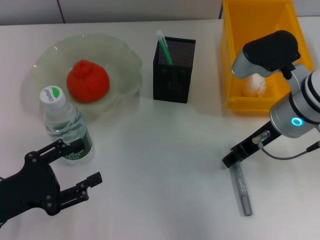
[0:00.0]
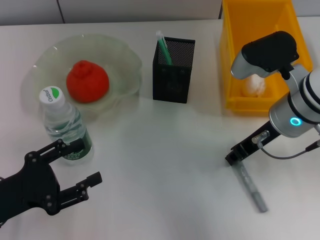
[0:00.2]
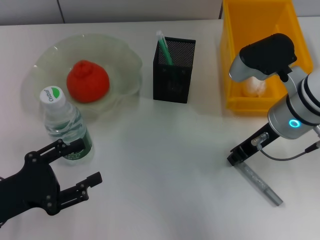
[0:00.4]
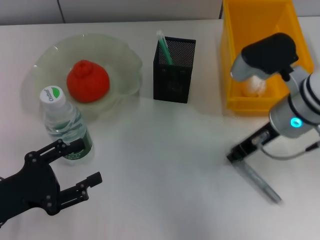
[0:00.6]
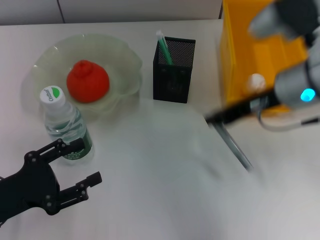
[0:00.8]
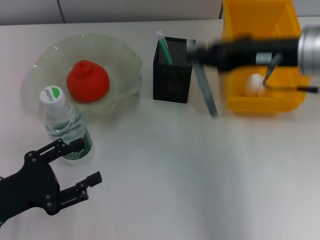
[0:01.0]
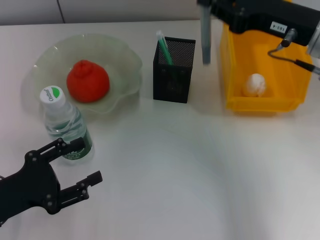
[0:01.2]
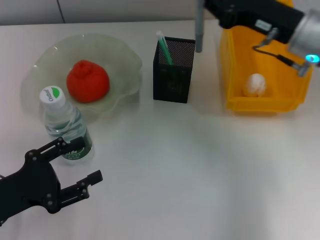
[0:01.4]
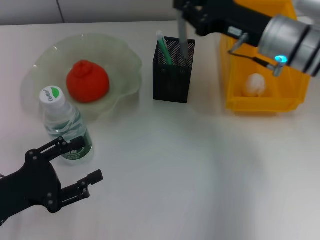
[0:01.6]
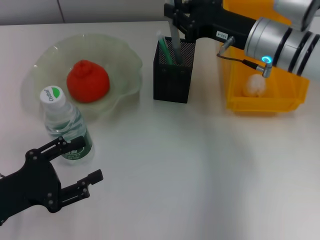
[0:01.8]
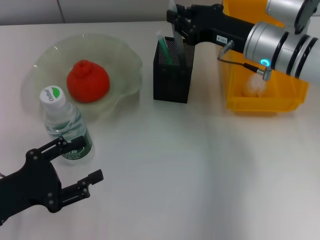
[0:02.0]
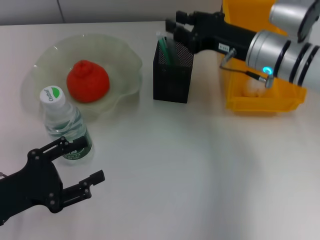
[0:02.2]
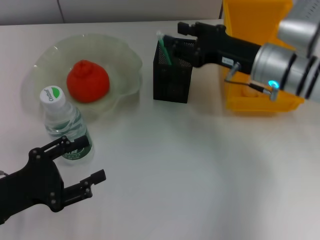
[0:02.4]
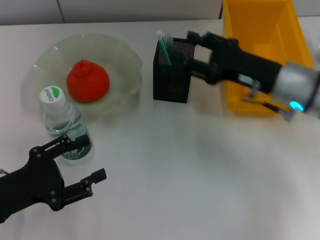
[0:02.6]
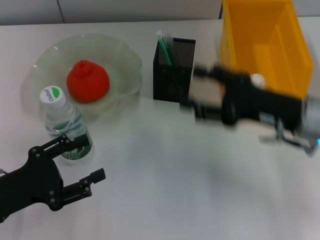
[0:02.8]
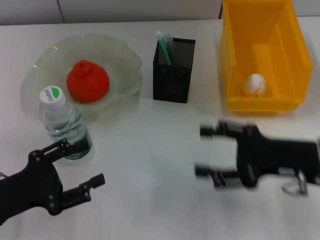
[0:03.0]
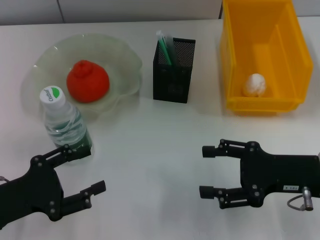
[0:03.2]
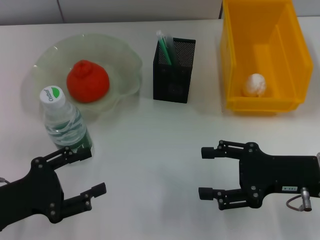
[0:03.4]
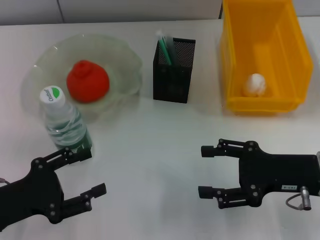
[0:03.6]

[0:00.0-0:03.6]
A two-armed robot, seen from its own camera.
Step, 0:00.4 to 0:02.4: Place the gray glue into the pen holder with the right hand.
0:00.0 to 0:01.8: The right gripper is displaced forward by about 5 cm, moves some 5 cm upward and comes back, and closes.
0:01.8 to 0:03.6: The right gripper heads backward and to the right, covering some 15 cm, and opens its fingers.
